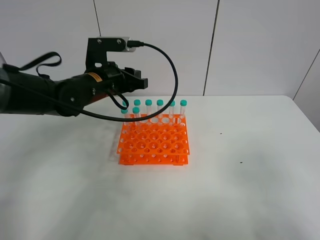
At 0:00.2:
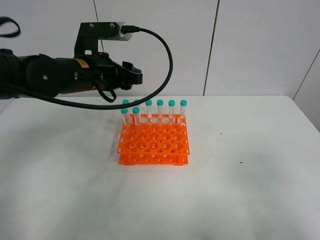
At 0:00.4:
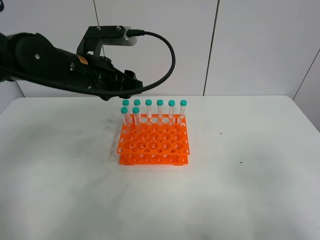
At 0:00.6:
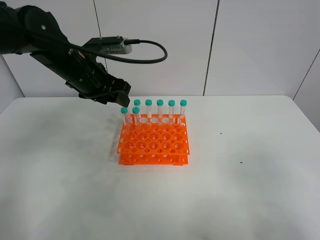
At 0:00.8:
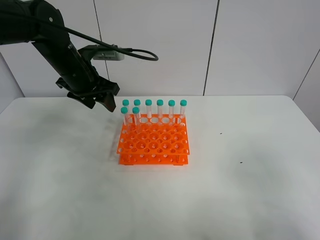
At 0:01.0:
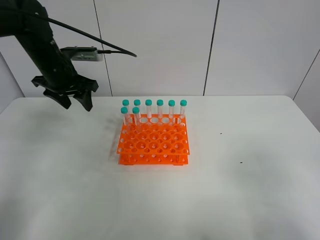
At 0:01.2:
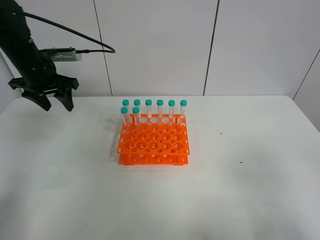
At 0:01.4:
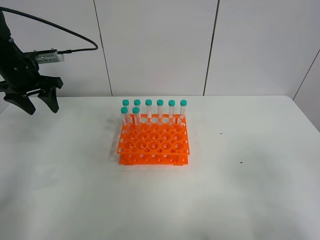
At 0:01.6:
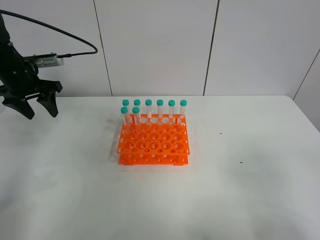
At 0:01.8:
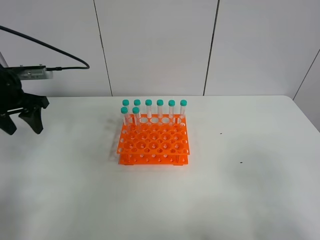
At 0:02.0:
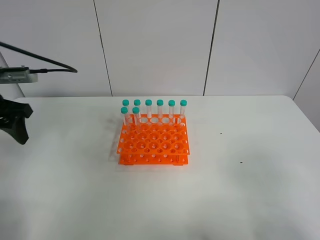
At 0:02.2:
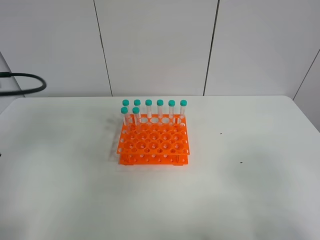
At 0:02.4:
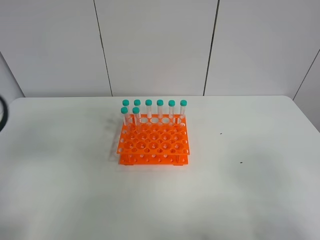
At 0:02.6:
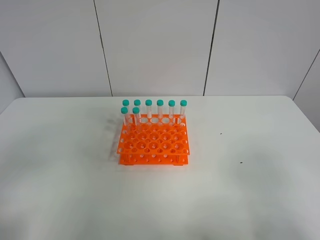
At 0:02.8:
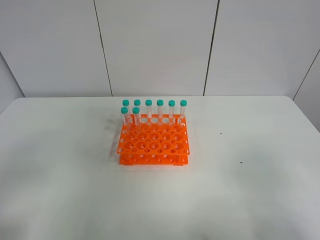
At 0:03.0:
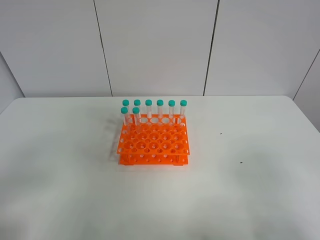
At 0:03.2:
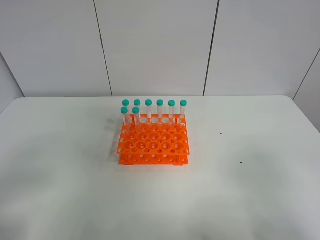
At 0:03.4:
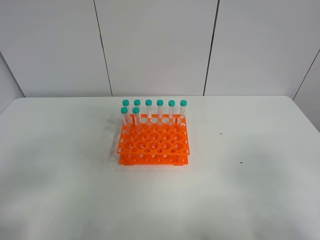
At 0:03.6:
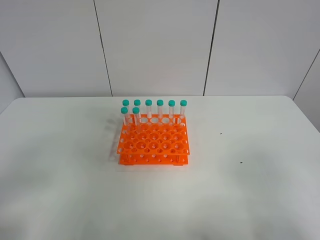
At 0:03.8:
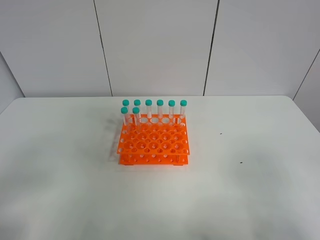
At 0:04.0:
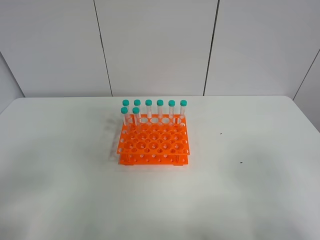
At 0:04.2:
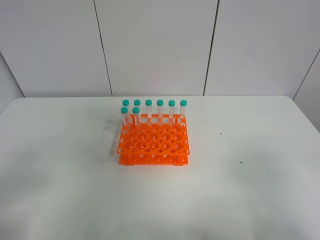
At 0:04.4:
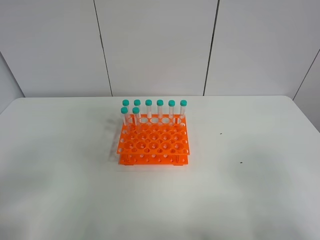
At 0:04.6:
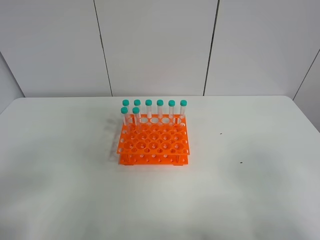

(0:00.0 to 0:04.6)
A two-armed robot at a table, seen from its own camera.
Task of the whole recording: Put the test tube on the table back onto the test tube rack.
0:00.0 - 0:01.6: The left gripper travels to the left by some 20 cm, and opens up.
0:01.6 - 0:03.0: The left gripper moves backward, some 35 cm.
